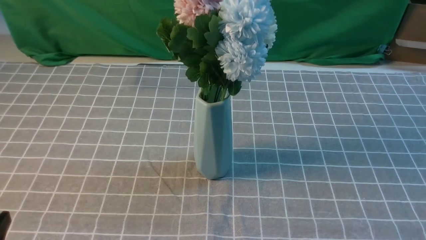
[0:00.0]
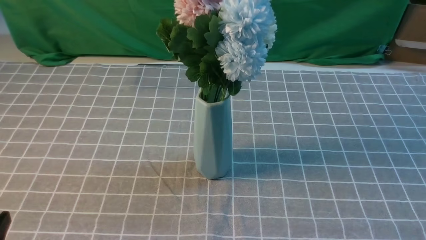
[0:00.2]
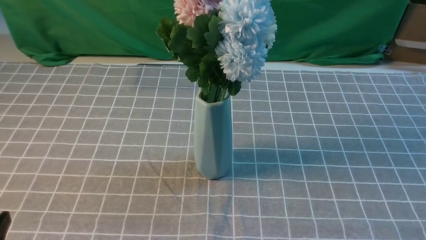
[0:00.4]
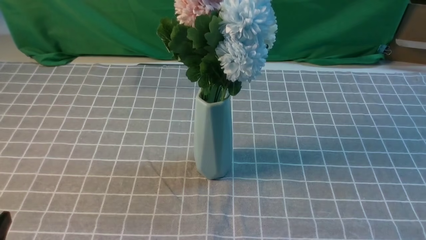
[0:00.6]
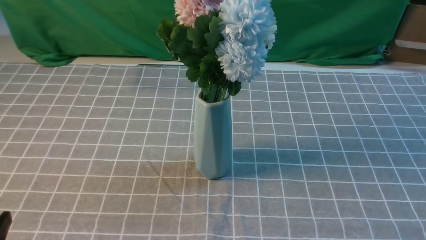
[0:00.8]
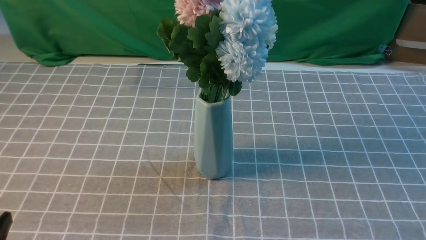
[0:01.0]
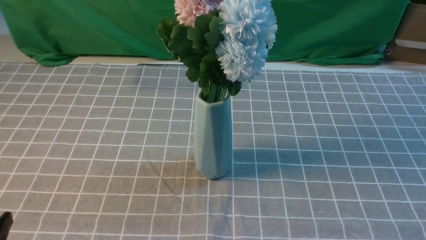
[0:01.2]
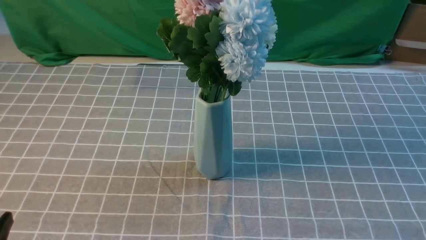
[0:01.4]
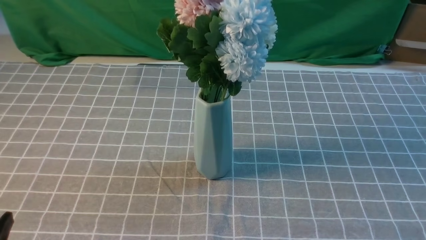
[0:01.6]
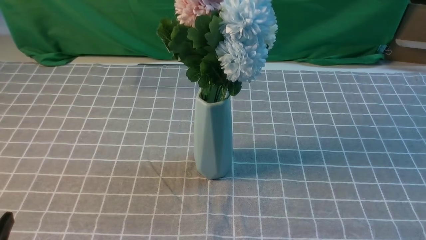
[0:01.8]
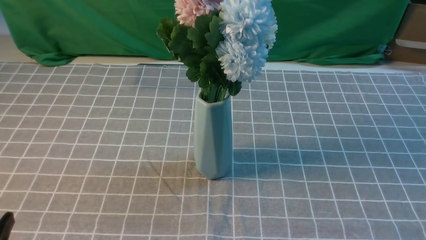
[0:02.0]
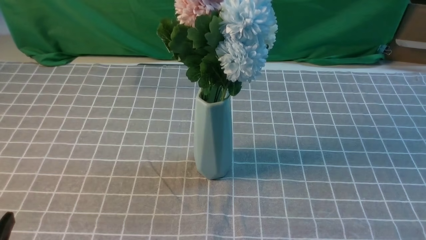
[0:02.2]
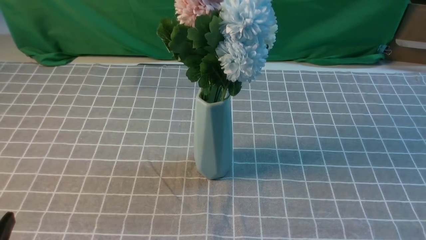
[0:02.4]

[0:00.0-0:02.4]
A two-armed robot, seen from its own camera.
Task of the whole recording: insert the flowers into the vase on the table with the grey tablecloth.
0:01.2 to 0:02.4: Both grippers stay about where they are.

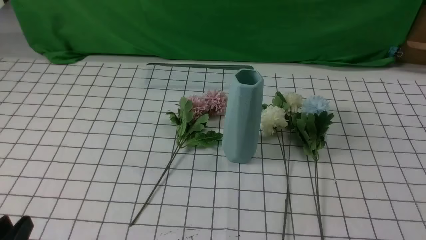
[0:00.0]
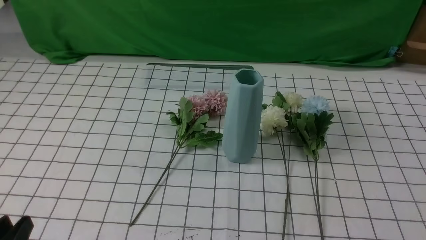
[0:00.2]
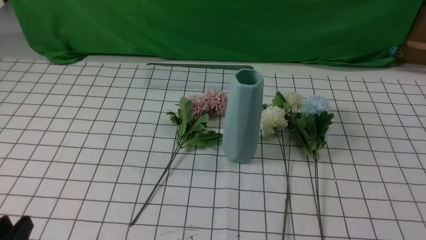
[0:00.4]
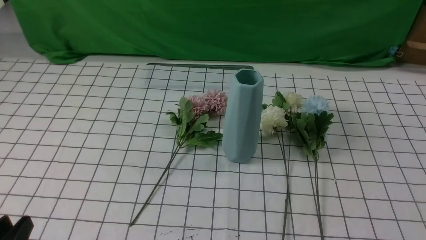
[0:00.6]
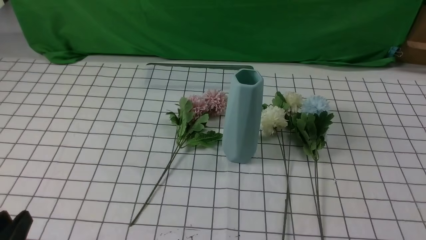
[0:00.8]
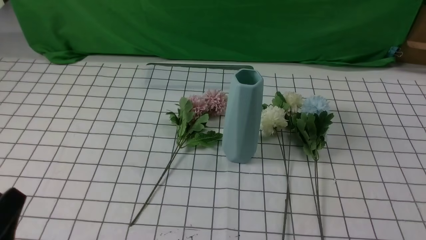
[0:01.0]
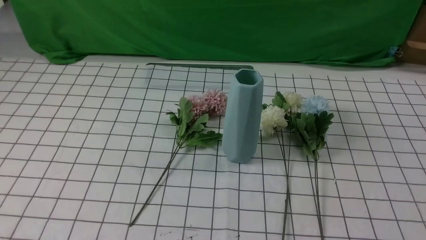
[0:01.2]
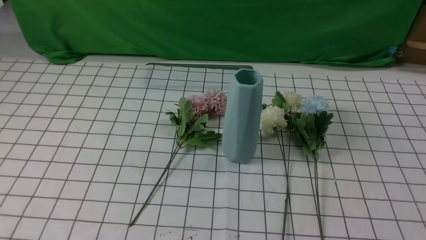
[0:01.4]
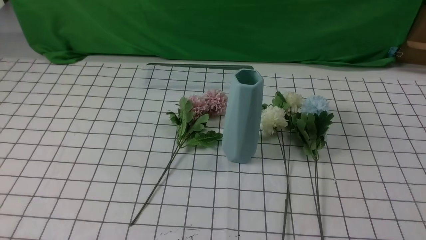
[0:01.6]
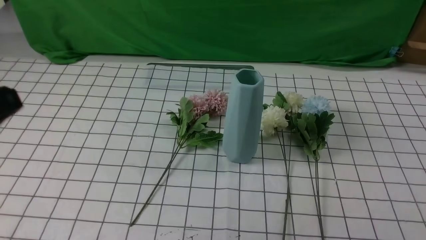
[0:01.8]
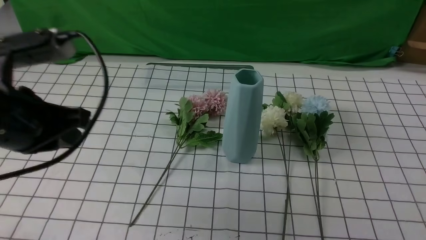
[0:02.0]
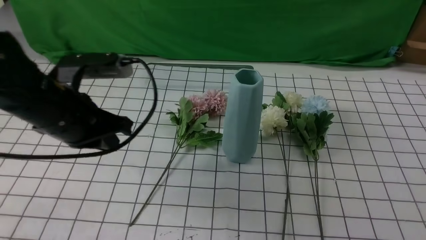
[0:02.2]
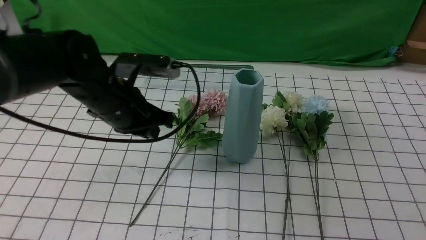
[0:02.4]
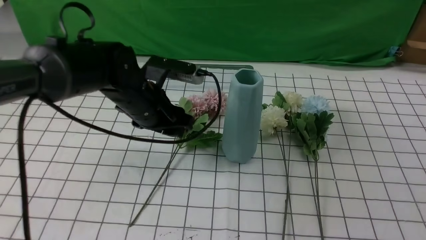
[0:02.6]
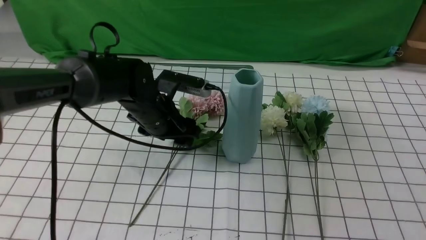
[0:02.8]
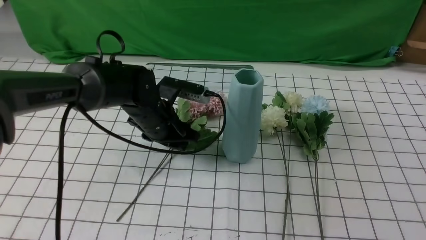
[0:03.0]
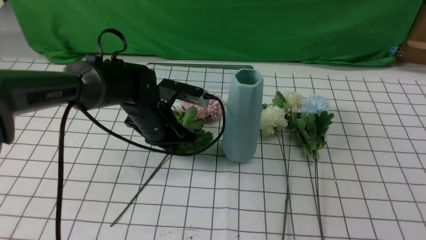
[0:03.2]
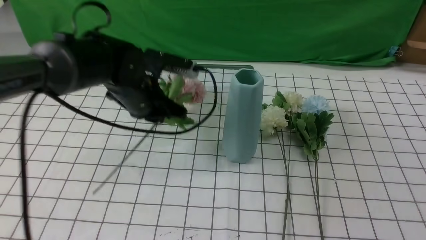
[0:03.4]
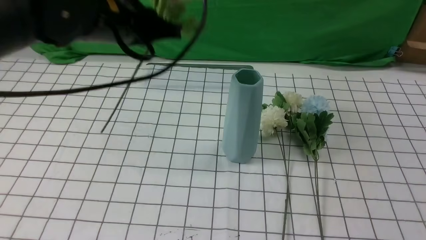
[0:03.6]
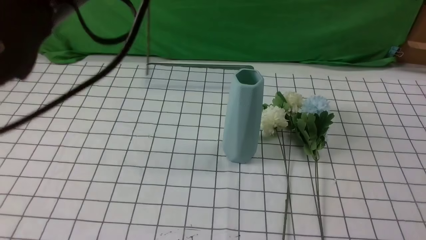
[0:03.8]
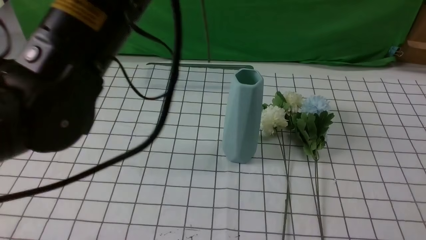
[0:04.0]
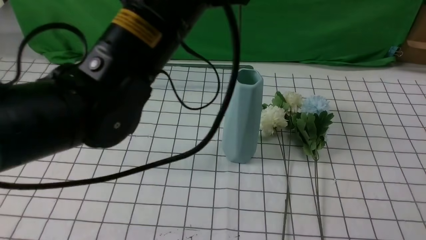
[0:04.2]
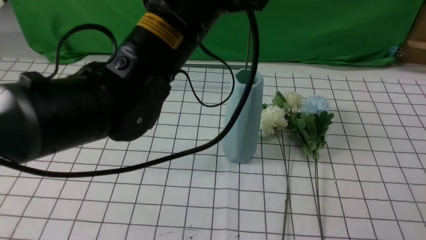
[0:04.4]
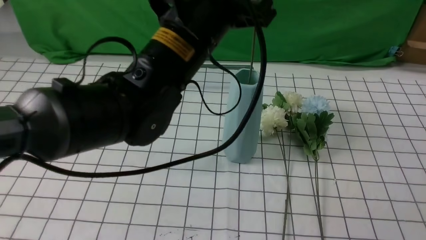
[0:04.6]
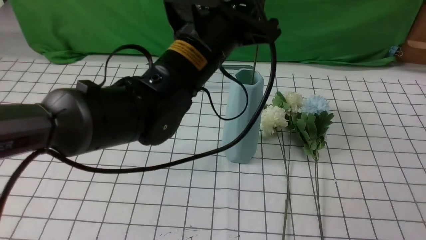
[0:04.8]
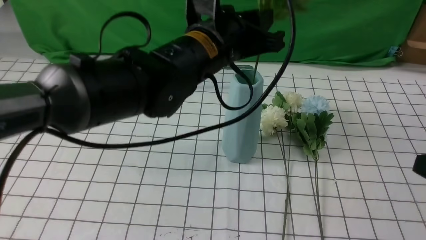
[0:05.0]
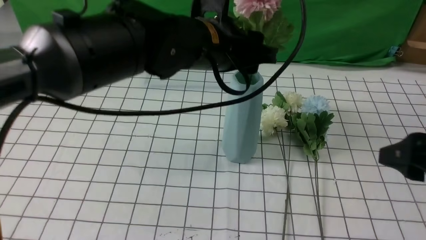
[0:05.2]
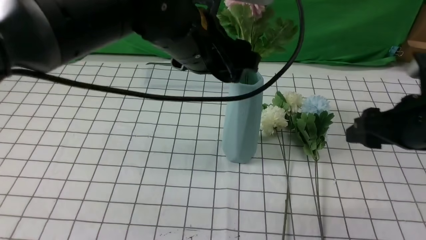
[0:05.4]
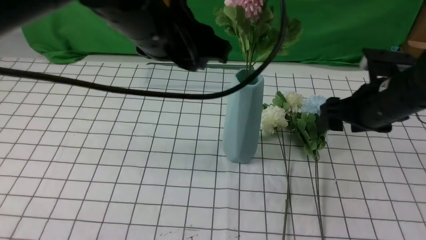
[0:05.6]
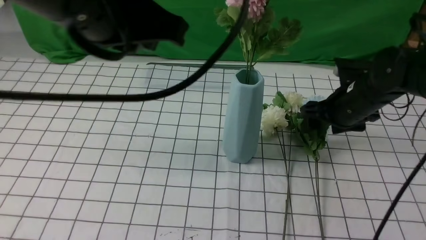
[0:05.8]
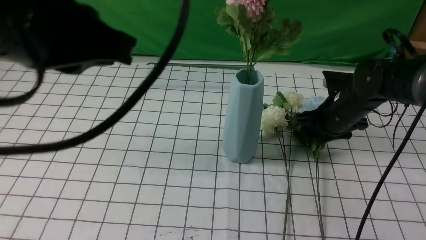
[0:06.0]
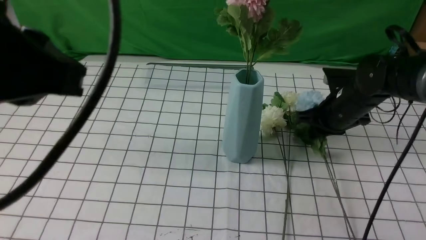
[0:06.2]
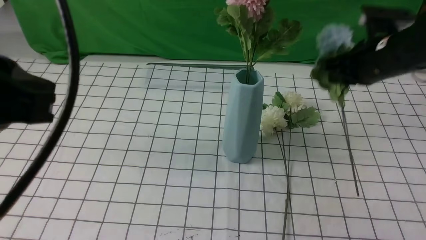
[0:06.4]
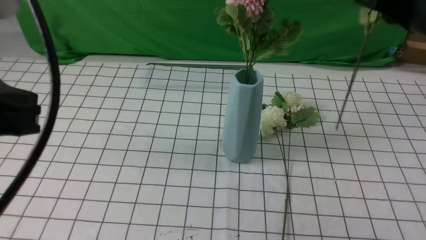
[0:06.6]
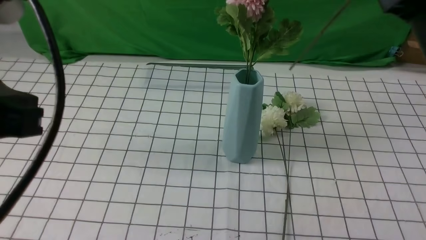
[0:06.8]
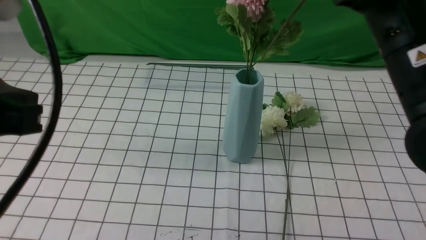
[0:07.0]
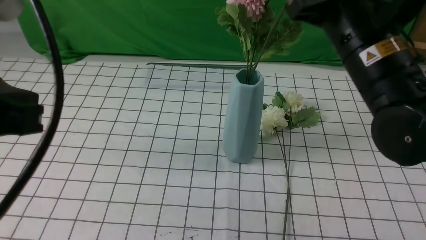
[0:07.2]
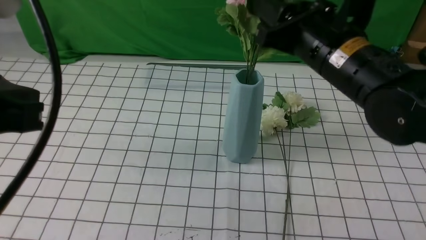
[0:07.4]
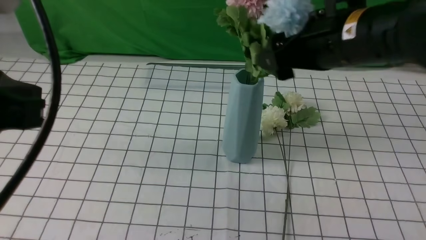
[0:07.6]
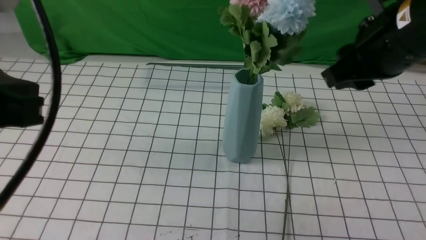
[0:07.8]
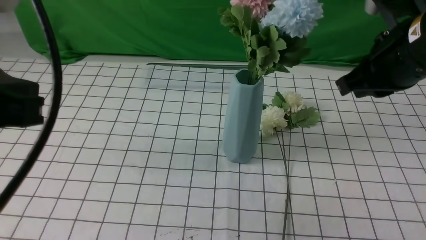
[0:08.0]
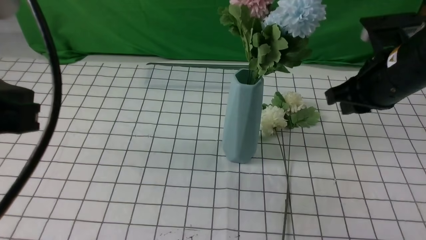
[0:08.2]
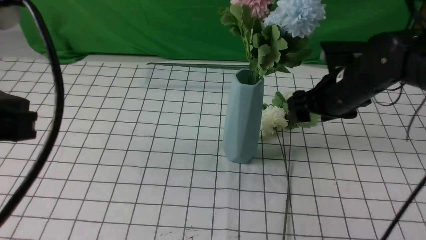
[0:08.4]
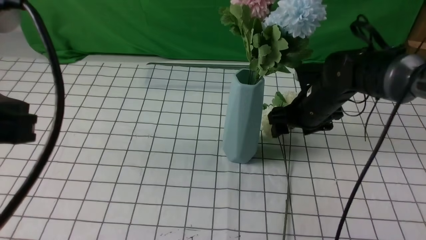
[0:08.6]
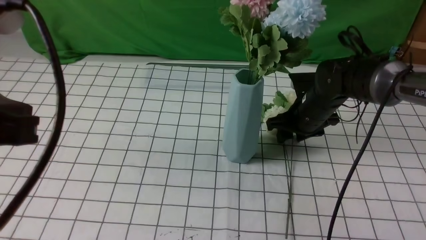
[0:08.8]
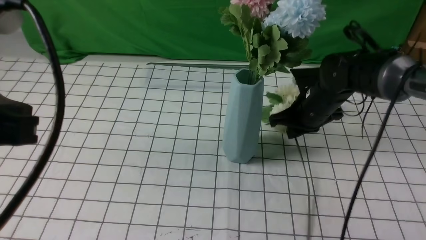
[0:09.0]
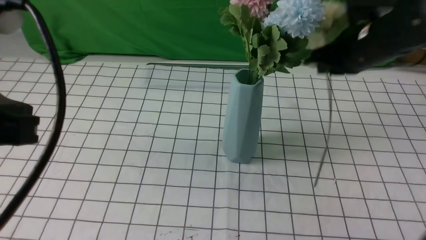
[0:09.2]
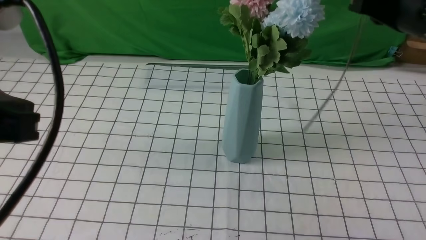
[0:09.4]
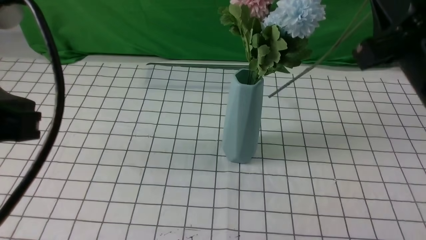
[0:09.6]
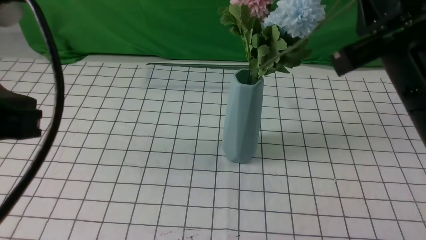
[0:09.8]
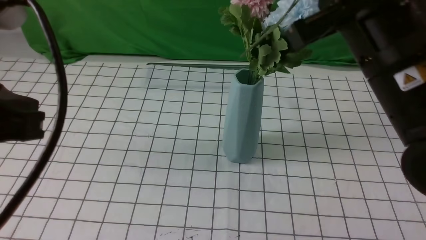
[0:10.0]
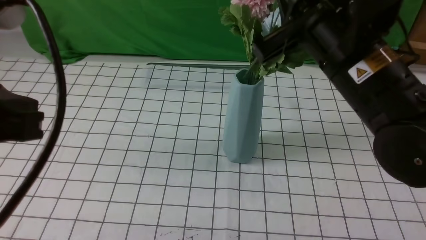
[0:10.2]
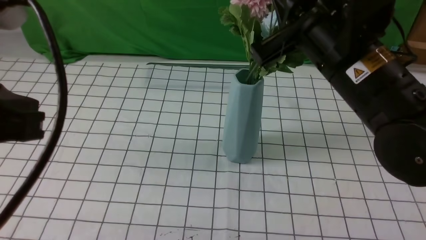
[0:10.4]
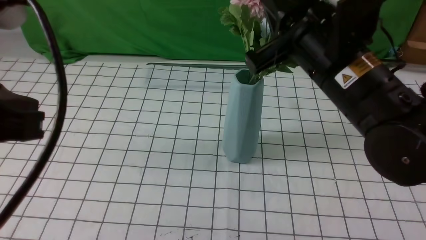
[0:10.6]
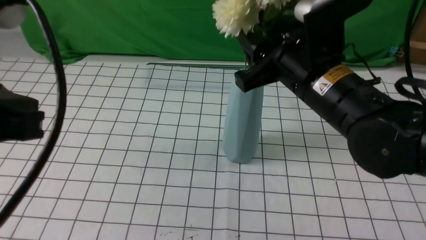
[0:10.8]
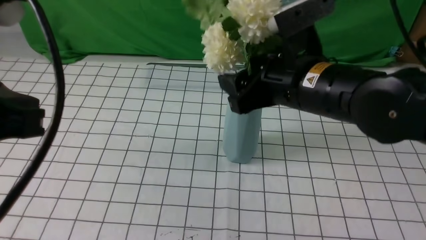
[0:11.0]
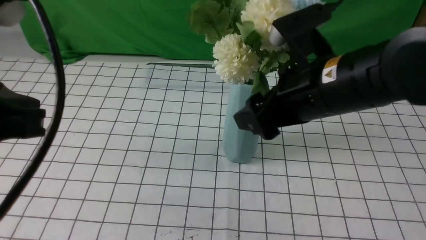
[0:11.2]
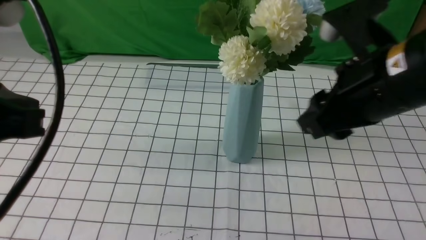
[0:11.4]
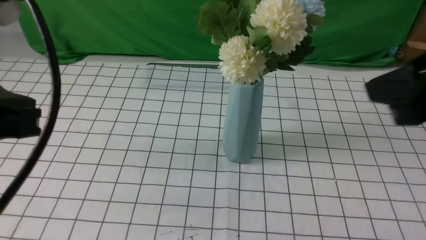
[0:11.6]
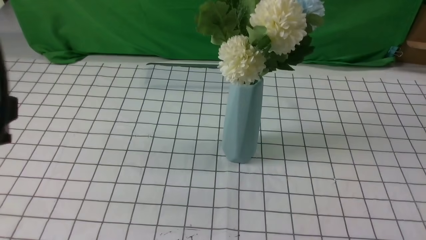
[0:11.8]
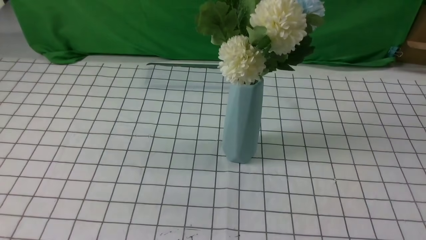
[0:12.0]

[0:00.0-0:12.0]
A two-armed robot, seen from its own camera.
Task of the whole recording: insert the flowers into the vase on the table with the white tablecloth.
Step, 0:00.0 to 0:03.0: use the left arm to grab a bunch of fresh flowers.
Step, 0:03.4 to 0:05.4: use the left arm to insert the flowers into the vase.
Step, 0:05.6 to 0:06.2: use the right arm to grab a bunch of fresh flowers.
Step, 0:06.4 to 0:07.6: use the right arm to insert the flowers into the vase.
Step, 0:07.8 to 0:08.8: use the right arm to grab a bunch of fresh flowers.
Step, 0:09.0 to 0:11.2: use the right arm to insert the flowers into the vase.
0:00.0 to 0:01.6: The left gripper shifts some 15 cm upward, and closes its fingers.
0:01.6 to 0:03.0: The left gripper moves forward, downward and to the right, roughly 40 cm, and opens its fingers, while the right gripper goes some 10 cm upward and forward, and opens its fingers.
0:03.0 to 0:04.4: The left gripper goes roughly 25 cm upward and backward, and closes up.
0:04.4 to 0:06.0: The left gripper heads backward, to the left and upward, covering about 15 cm, and opens, then closes once more. The right gripper goes roughly 30 cm forward and downward.
0:06.0 to 0:07.6: The left gripper is displaced to the left by about 5 cm, while the right gripper shifts approximately 20 cm upward, backward and to the left, and closes, then reopens.
0:07.6 to 0:09.0: The right gripper travels downward and forward by roughly 15 cm, and closes up.
0:09.0 to 0:10.4: The right gripper is displaced backward and upward by approximately 20 cm.
0:10.4 to 0:12.0: The right gripper is displaced backward and to the right by about 25 cm, and opens, then closes once more. Meanwhile the left gripper heads backward, covering roughly 5 cm.
